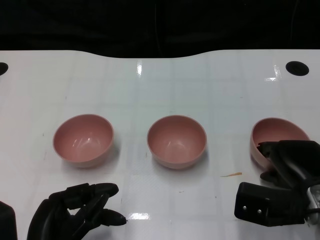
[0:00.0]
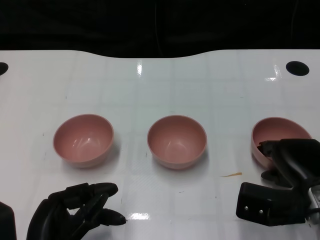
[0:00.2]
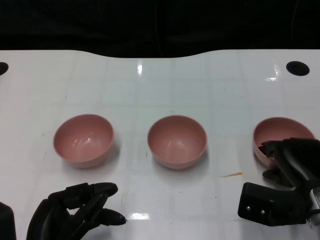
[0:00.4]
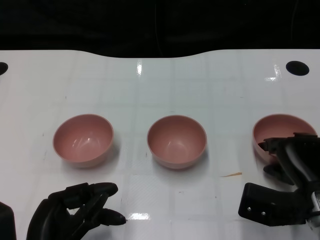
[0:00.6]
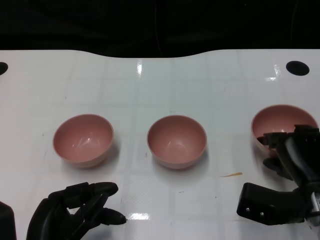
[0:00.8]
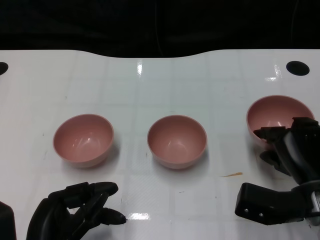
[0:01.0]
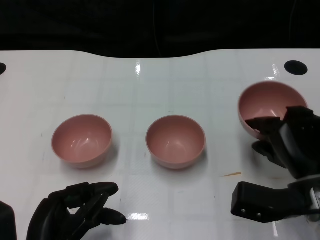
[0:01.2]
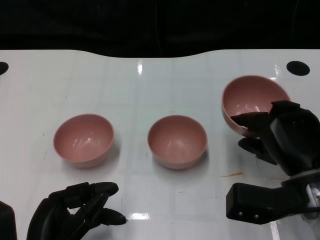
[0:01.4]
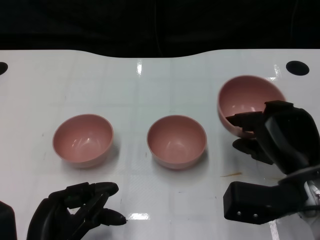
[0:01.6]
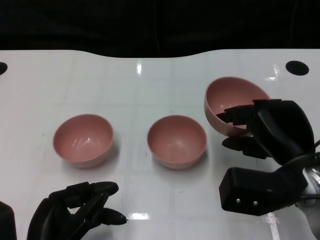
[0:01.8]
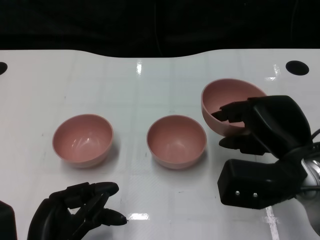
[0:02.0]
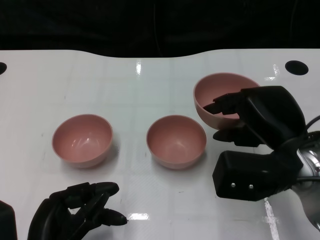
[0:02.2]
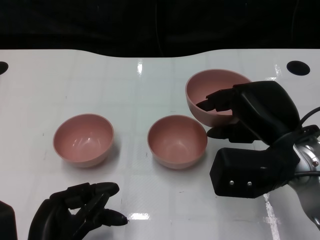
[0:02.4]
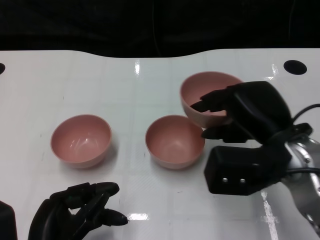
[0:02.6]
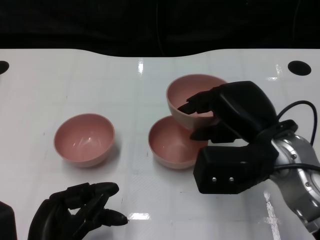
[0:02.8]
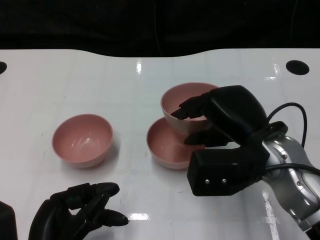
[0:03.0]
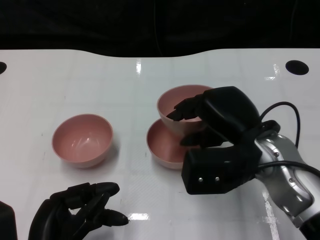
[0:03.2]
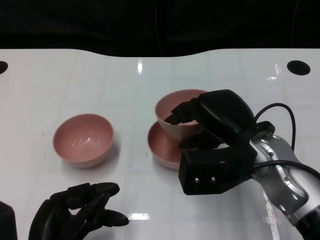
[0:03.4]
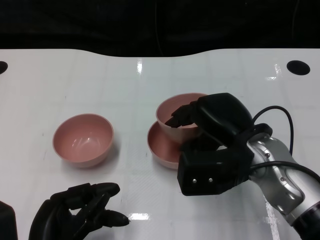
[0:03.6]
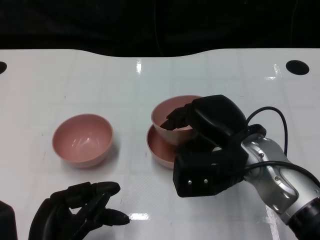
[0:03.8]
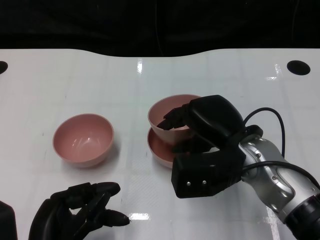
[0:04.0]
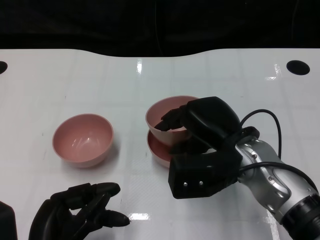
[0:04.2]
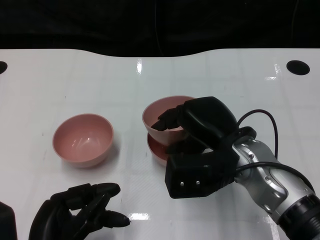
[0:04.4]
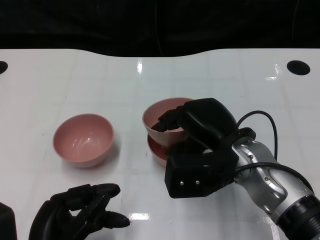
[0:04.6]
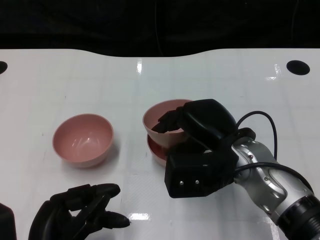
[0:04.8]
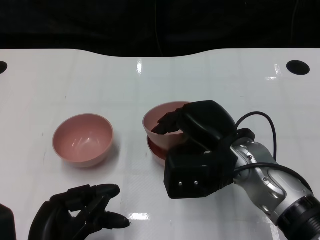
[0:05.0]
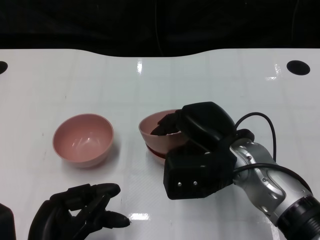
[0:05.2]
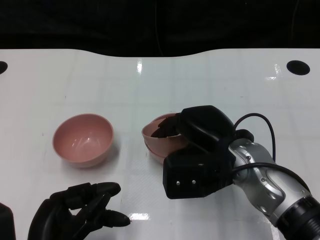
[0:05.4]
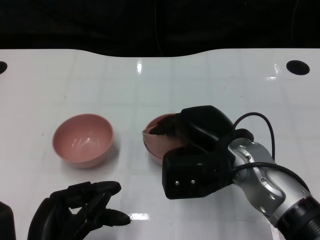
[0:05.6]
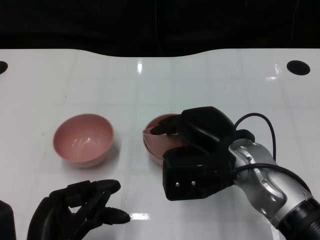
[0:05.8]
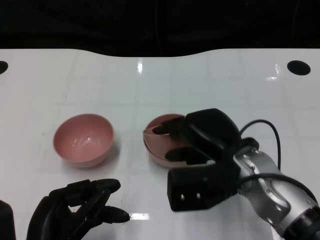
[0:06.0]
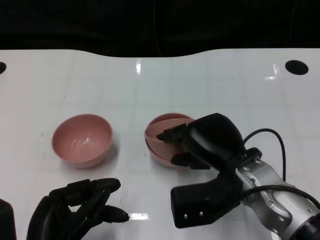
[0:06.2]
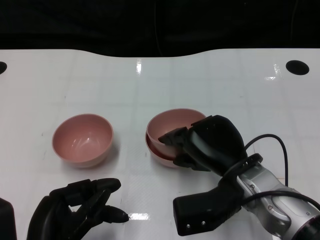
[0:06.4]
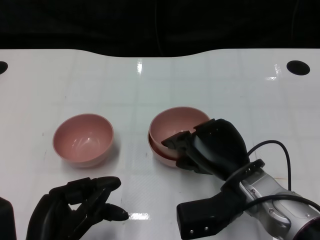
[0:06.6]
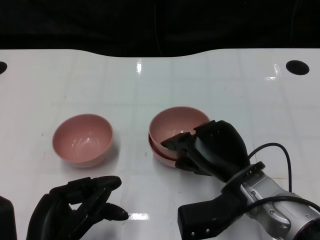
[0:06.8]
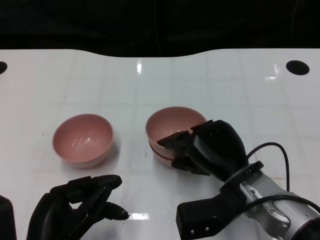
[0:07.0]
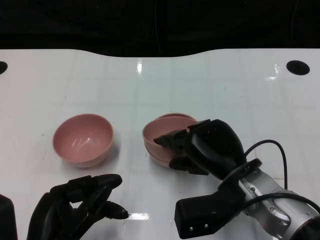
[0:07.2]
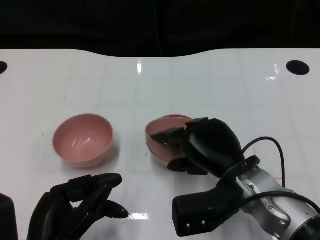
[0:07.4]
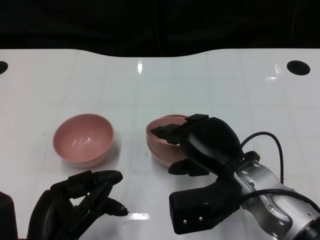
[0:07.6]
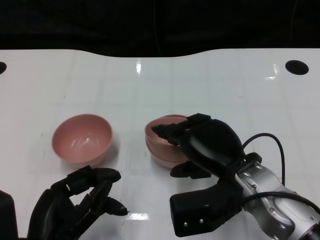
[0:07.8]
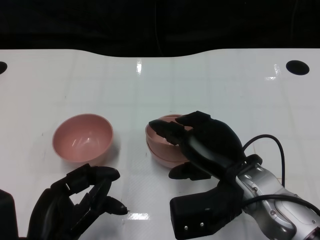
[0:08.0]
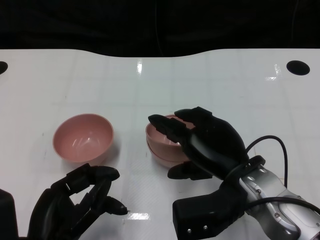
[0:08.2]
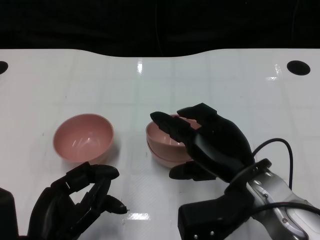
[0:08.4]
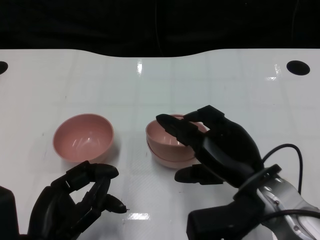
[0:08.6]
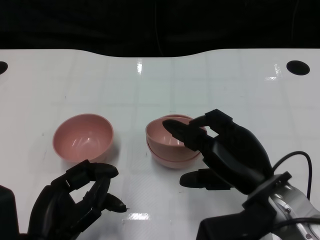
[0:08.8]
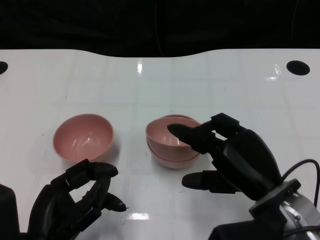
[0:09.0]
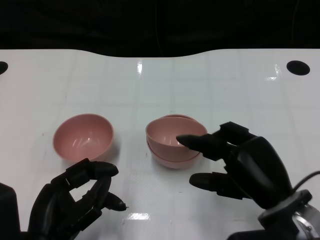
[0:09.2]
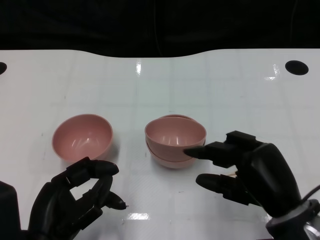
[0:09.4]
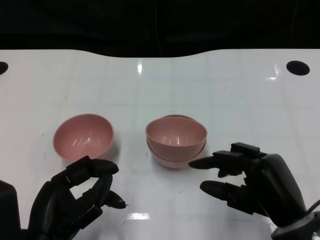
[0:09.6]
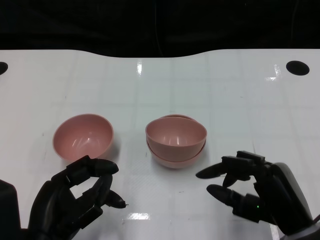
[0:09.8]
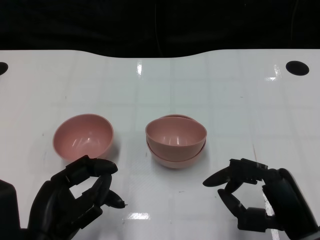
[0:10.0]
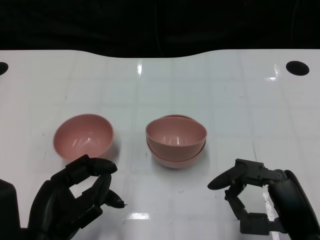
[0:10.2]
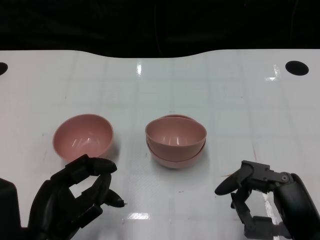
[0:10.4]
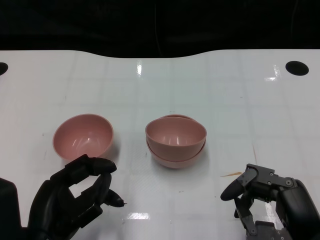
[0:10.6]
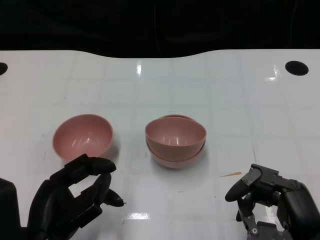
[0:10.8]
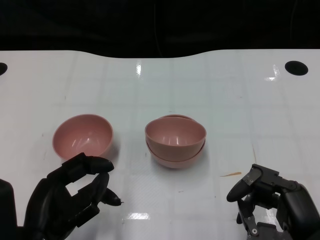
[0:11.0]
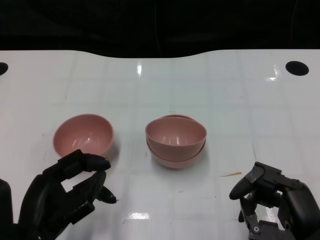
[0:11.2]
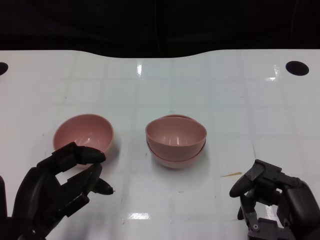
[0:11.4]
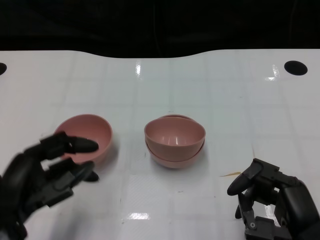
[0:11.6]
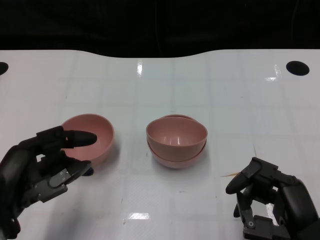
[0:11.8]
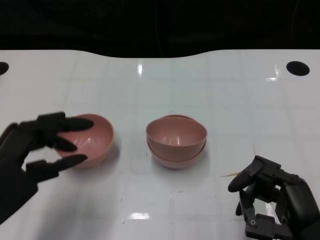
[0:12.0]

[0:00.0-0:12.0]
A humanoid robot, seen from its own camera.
Task of the whole recording: Pick up the bowl on one side of the table and place it on top of the middle bowl, then pick up the bowl on the other side of the table and place it on top of the middle bowls.
Step, 0:00.8 to 0:08.2: Place the bowl on the right onto the bowl in the middle with right gripper.
0:01.6 to 0:03.0: The right hand moves to the left, approximately 5 cm.
0:03.0 to 0:06.0: The hands move only a little.
0:06.0 to 0:07.6: The hands stay close to where they were, moving slightly.
0:07.6 to 0:09.0: The right hand moves some 5 cm.
0:09.0 to 0:10.4: The right hand goes some 5 cm backward.
0:10.4 to 0:12.0: The left hand goes about 10 cm to the left and upward.

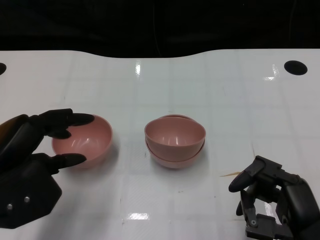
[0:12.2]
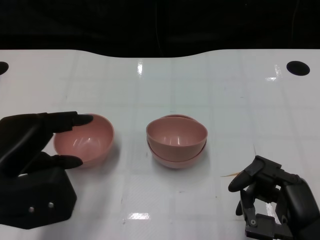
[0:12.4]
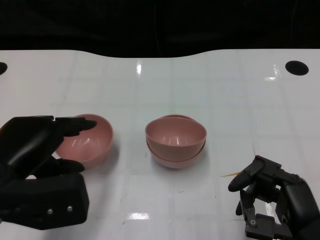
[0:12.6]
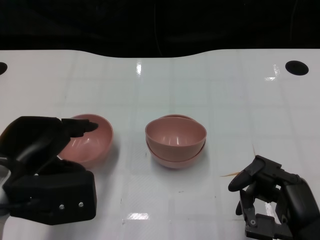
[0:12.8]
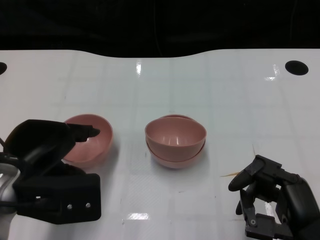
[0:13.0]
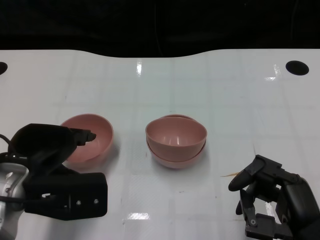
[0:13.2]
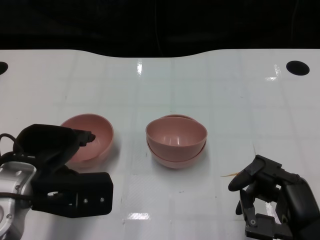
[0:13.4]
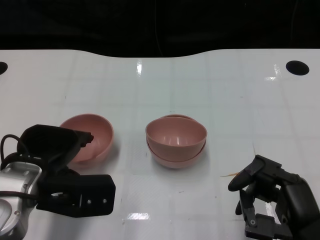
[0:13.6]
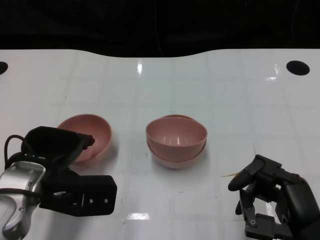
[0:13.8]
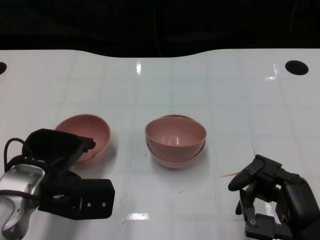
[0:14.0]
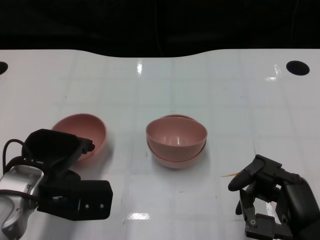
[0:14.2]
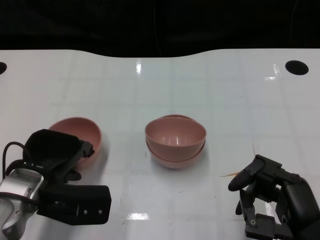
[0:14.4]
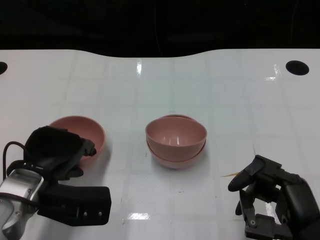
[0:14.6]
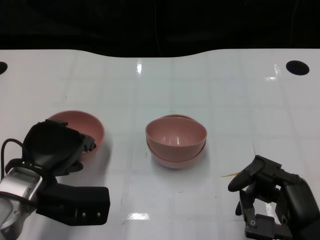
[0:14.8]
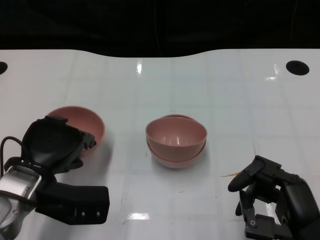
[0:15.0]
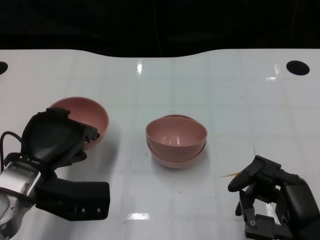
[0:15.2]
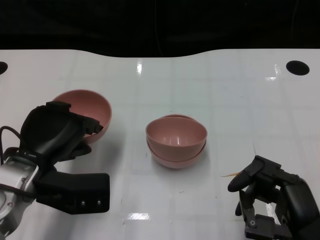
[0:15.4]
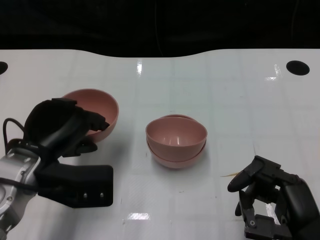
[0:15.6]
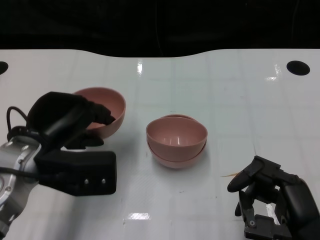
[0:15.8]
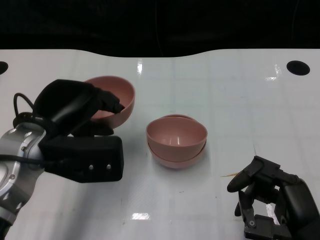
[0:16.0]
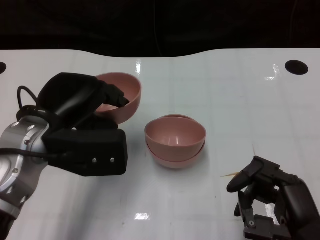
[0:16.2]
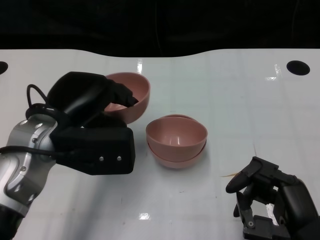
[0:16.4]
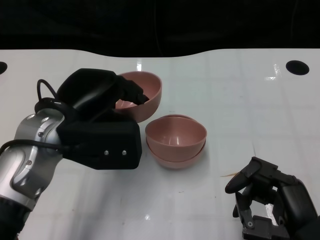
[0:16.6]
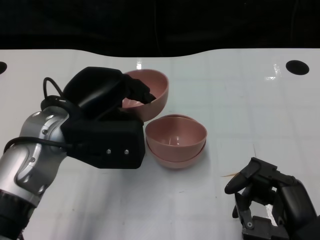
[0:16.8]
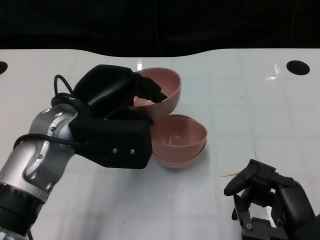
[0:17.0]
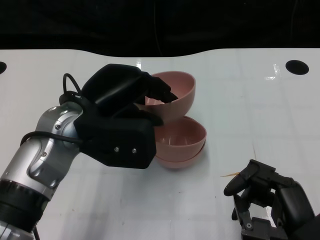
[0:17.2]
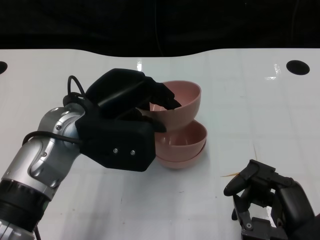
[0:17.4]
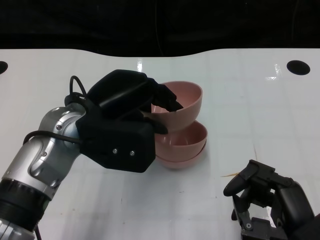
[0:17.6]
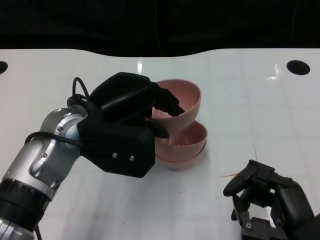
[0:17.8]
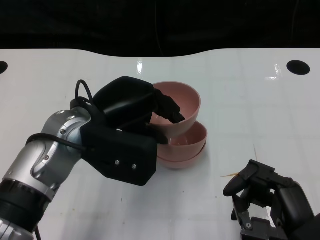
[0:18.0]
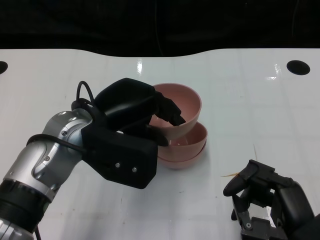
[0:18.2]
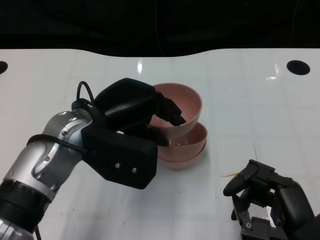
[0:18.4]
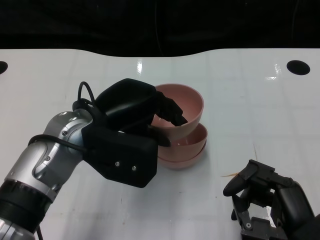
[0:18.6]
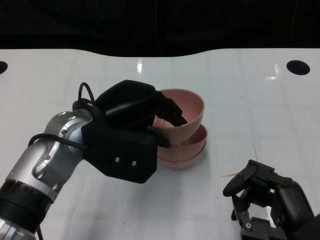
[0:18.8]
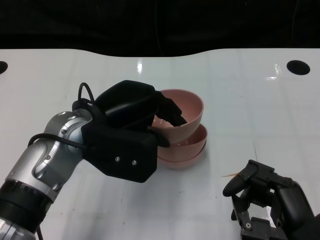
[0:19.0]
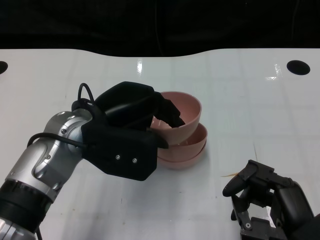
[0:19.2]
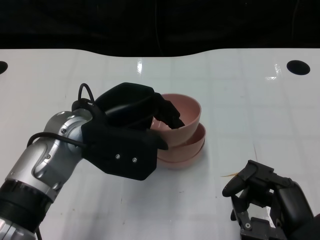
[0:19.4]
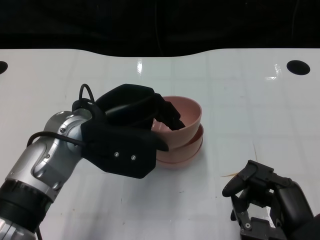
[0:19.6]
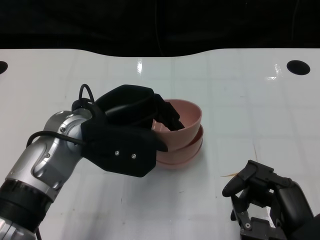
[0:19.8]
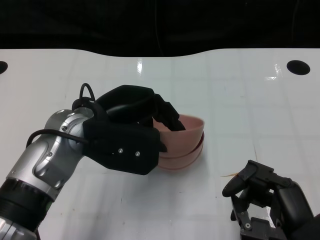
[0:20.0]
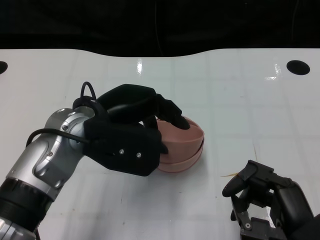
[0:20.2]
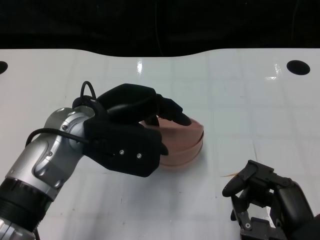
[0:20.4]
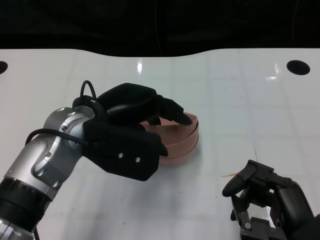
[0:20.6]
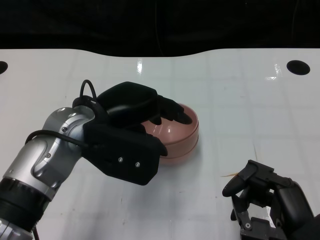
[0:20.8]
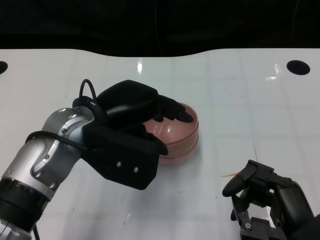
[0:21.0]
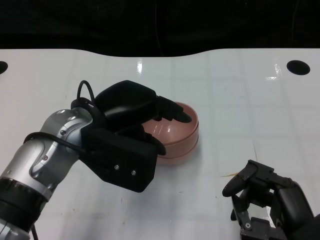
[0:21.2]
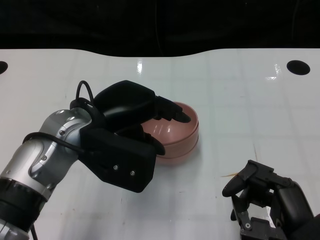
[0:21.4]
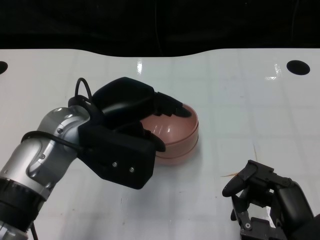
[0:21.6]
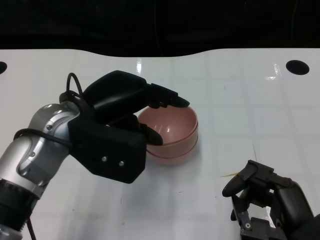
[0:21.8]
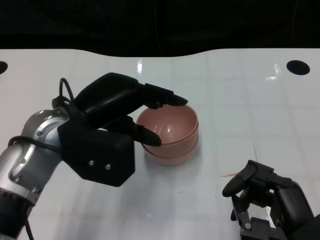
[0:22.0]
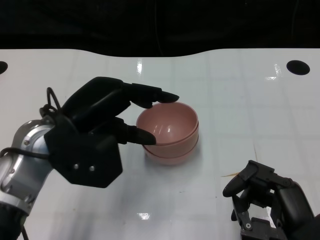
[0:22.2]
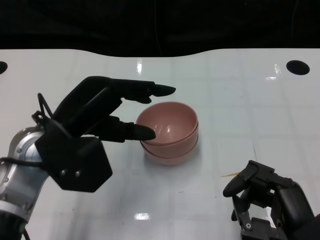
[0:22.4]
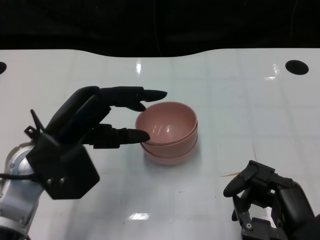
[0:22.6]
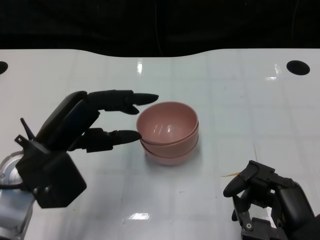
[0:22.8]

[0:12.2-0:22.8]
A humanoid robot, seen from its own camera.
Task of the whole recording: Pick up the bowl on one side of the table and place it on top of the middle bowl, then pick up the bowl on the other side of the table and place it on top of the middle bowls.
Step, 0:12.2 to 0:14.8: Grasp the bowl on the left with the left gripper.
Step, 0:15.0 to 0:22.0: Place the bowl on the left onto the bowl in the middle with left gripper.
0:12.2 to 0:13.8: The left hand moves forward, some 5 cm.
0:15.2 to 0:16.8: The left hand shifts roughly 10 cm upward and to the right.
0:18.2 to 0:21.2: There are only small adjustments of the hands.
0:21.2 to 0:22.8: The left hand heads to the left, covering approximately 5 cm.
